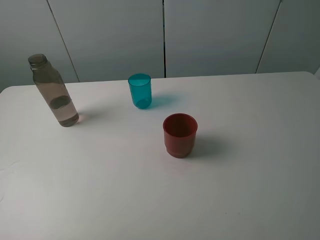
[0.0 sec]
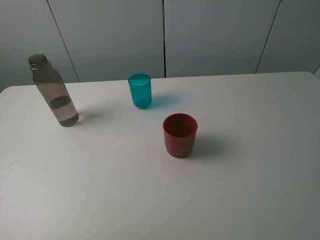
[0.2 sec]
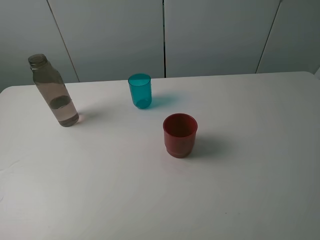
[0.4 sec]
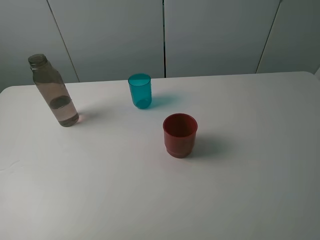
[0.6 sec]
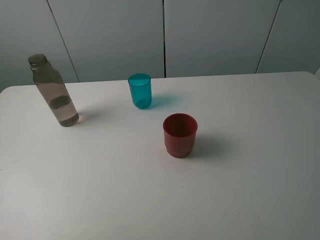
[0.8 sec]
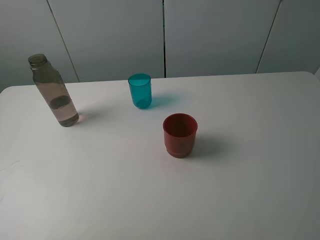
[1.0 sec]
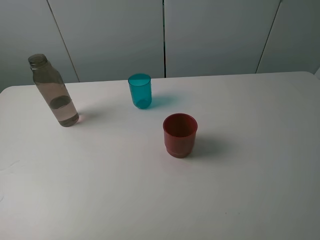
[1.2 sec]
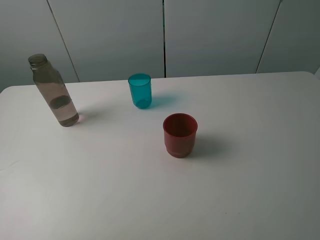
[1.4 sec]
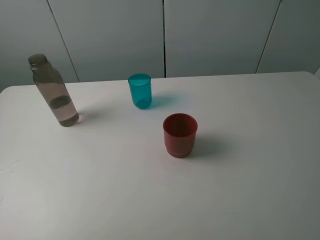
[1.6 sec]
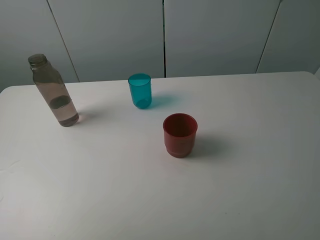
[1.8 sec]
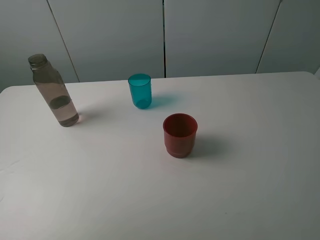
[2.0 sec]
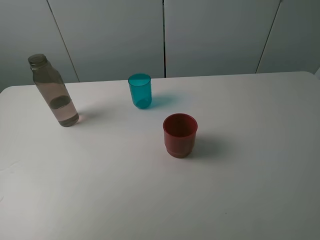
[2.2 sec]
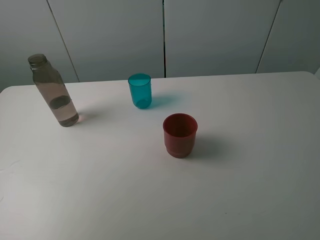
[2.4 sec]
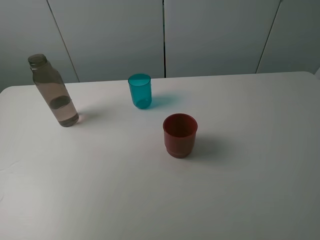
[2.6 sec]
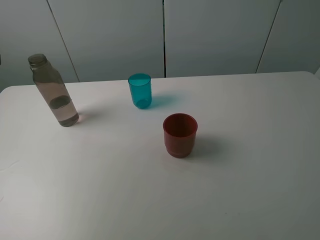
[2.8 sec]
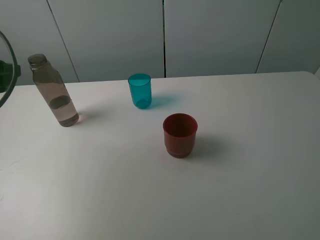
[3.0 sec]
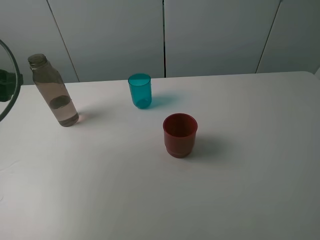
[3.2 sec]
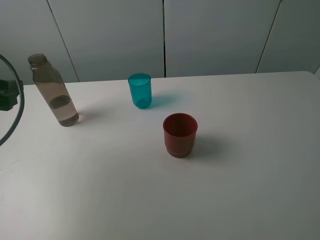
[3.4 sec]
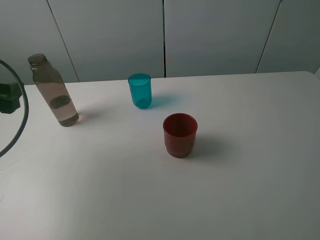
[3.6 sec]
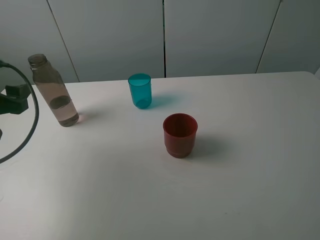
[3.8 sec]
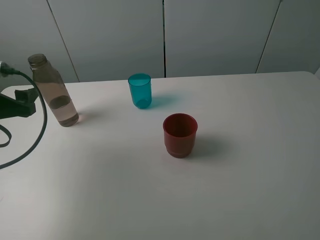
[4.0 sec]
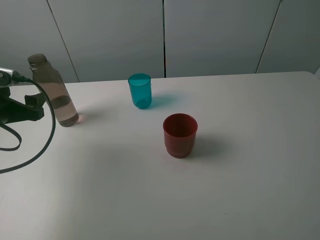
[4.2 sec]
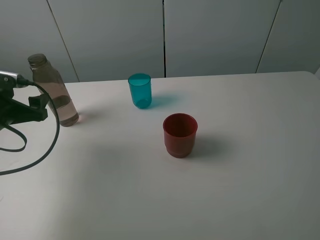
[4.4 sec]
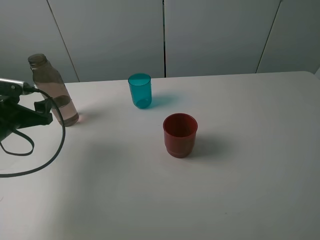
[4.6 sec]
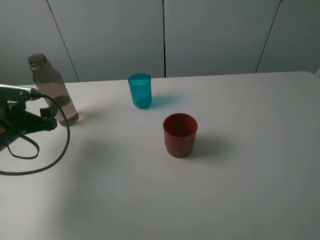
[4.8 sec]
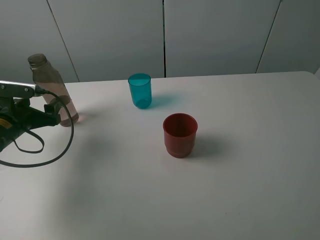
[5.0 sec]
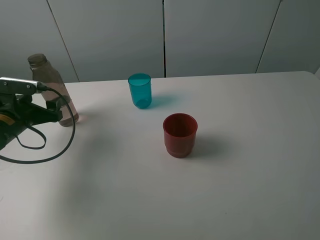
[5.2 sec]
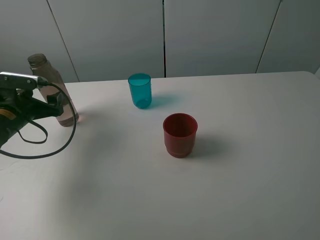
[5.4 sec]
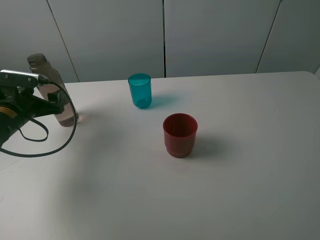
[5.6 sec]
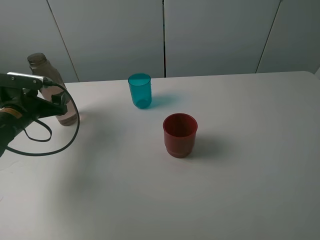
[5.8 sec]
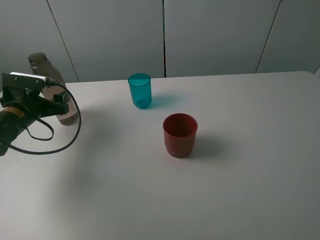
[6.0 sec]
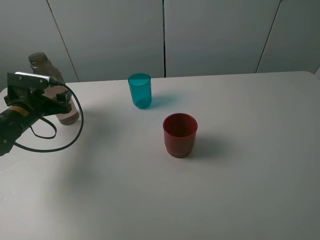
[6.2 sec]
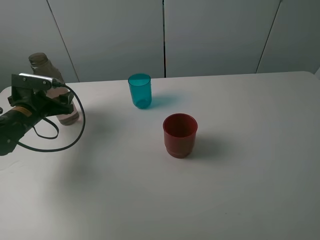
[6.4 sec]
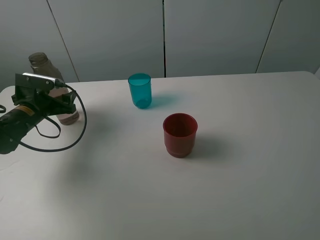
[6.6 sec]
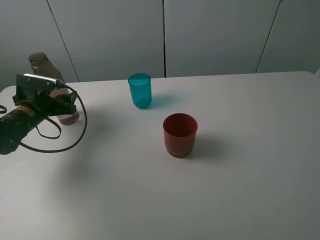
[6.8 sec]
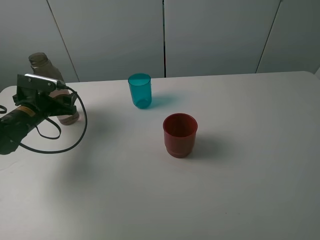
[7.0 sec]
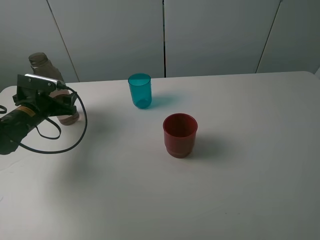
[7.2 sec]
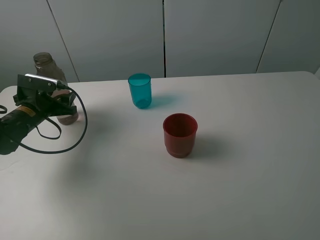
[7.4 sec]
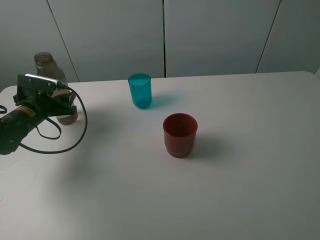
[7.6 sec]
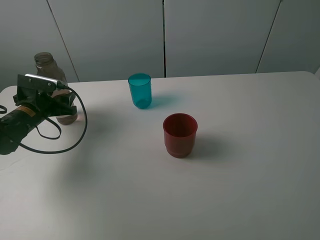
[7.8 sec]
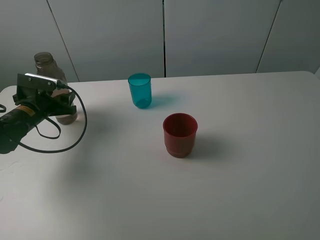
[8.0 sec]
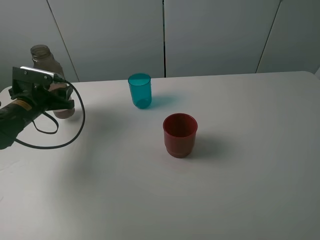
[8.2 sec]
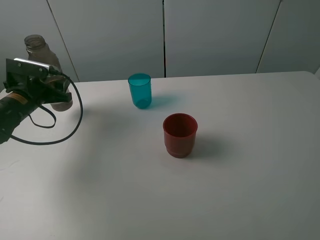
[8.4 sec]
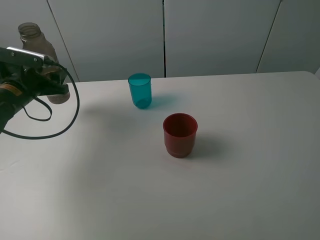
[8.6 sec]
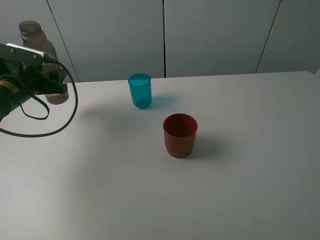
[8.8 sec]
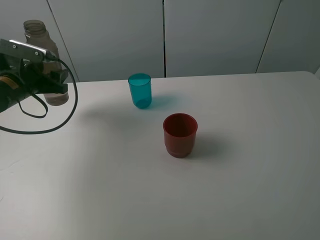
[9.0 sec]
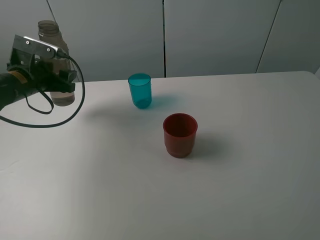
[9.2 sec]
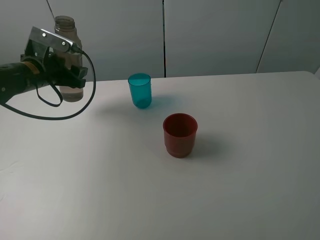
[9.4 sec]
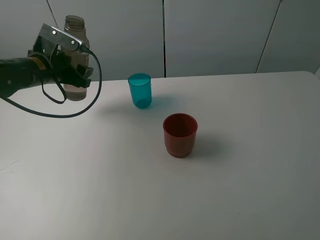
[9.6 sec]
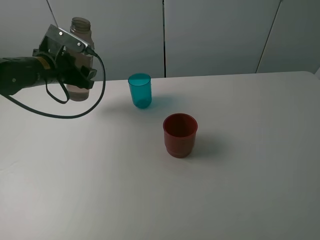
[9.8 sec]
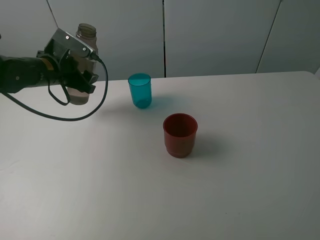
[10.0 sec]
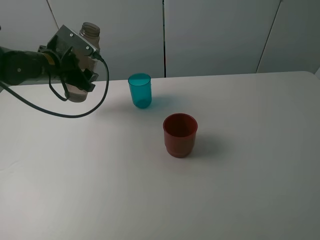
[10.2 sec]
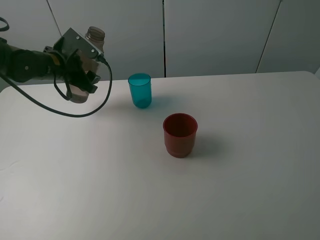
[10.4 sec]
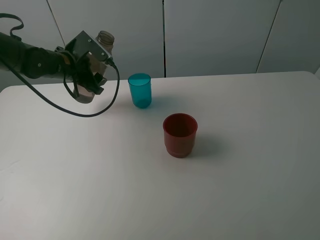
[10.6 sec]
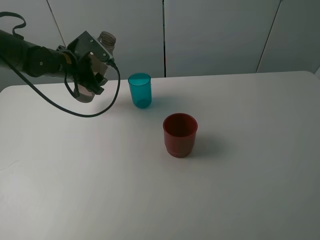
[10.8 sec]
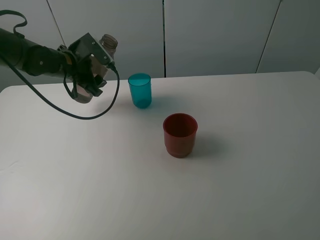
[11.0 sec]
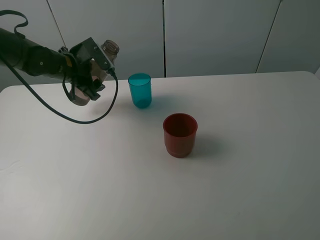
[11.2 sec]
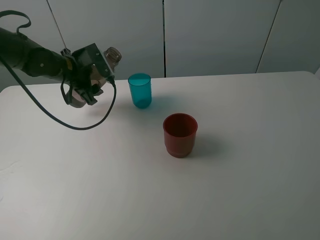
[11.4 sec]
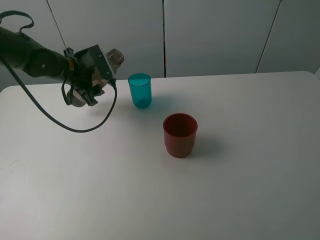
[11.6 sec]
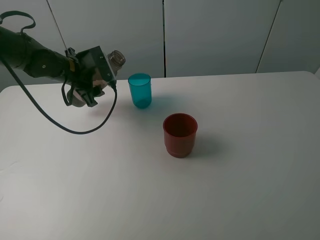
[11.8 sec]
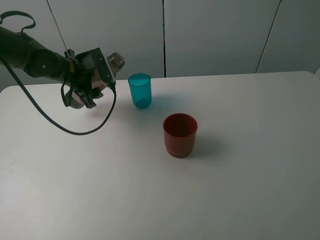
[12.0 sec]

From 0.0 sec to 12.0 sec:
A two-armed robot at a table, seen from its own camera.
Task of the whole recording: pick up the bottle and pour water into the cup, then pick up the cup containing water and pour it into another cup.
Step, from 0.0 sec to 7.6 sec: Grasp the brown bottle with the left gripper.
From 1.6 sec to 3.0 sec: The left gripper is displaced forward by about 20 cm.
From 3.0 sec to 4.4 sec: The left gripper heads downward, covering about 10 cm.
From 4.4 sec to 6.0 sec: The left gripper heads forward, covering some 5 cm.
From 6.0 sec to 7.6 sec: The left gripper closes its fingers.
From 7.6 sec to 9.0 sec: The left gripper heads upward, covering about 10 cm.
From 9.0 sec to 10.4 sec: The left gripper heads to the right and forward, covering approximately 10 cm.

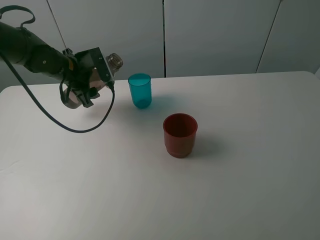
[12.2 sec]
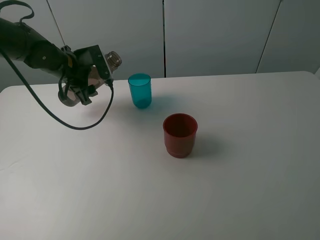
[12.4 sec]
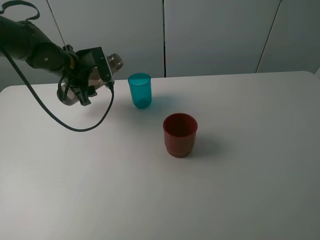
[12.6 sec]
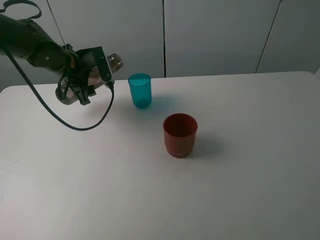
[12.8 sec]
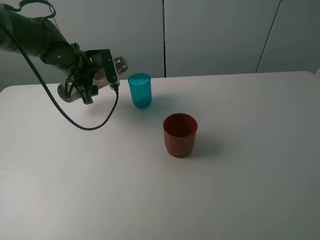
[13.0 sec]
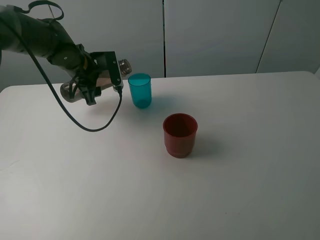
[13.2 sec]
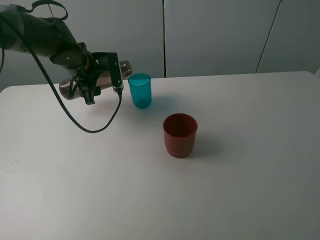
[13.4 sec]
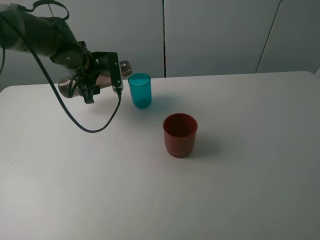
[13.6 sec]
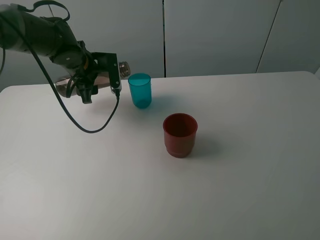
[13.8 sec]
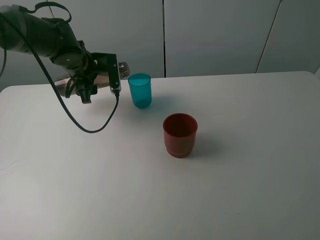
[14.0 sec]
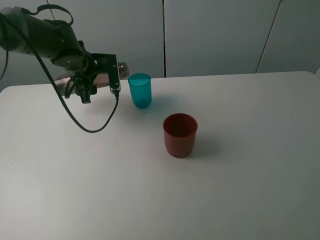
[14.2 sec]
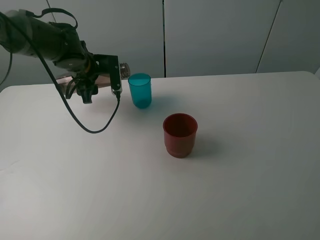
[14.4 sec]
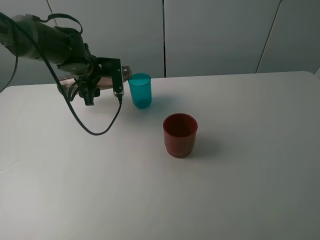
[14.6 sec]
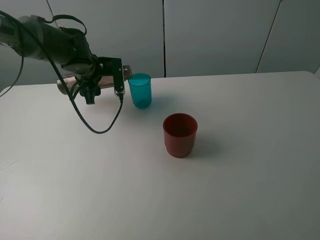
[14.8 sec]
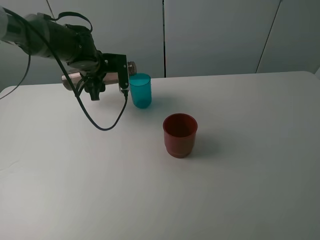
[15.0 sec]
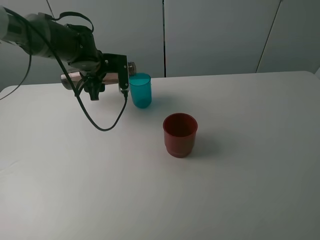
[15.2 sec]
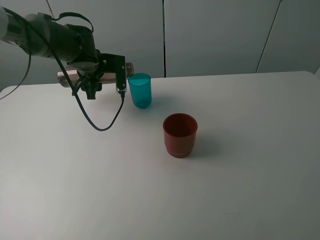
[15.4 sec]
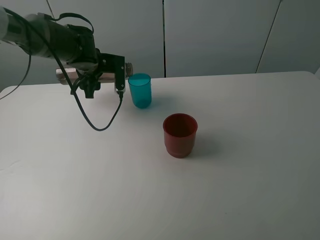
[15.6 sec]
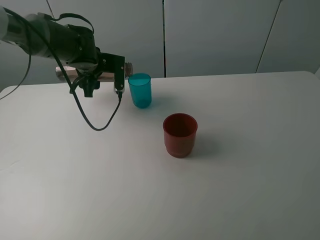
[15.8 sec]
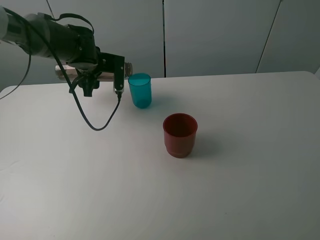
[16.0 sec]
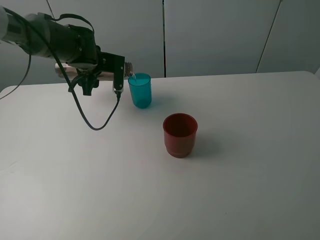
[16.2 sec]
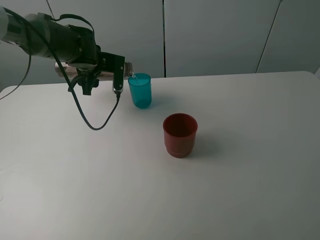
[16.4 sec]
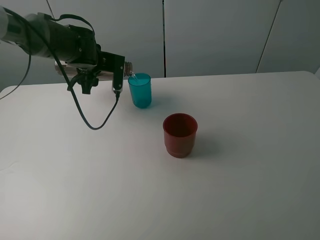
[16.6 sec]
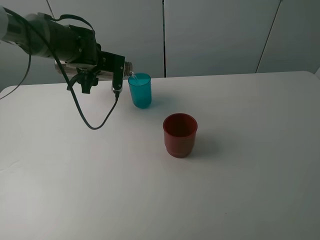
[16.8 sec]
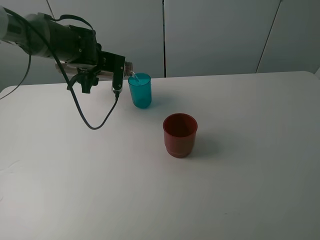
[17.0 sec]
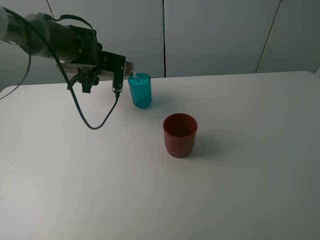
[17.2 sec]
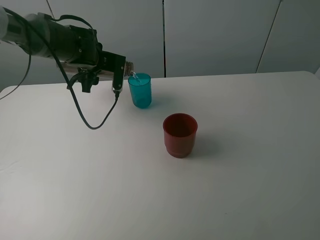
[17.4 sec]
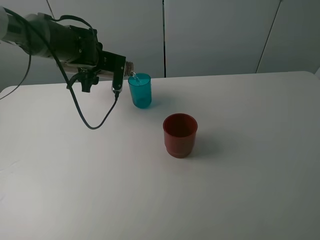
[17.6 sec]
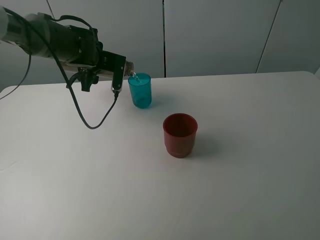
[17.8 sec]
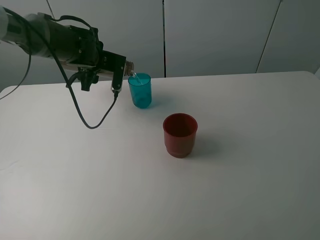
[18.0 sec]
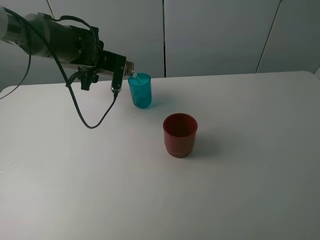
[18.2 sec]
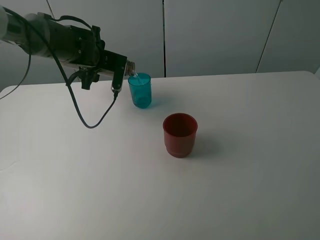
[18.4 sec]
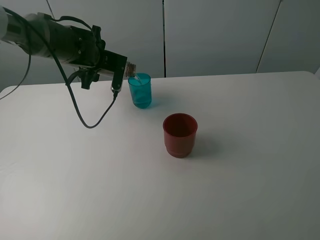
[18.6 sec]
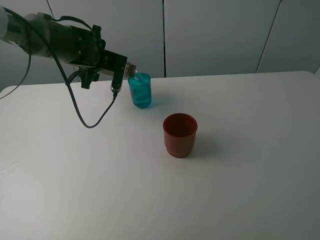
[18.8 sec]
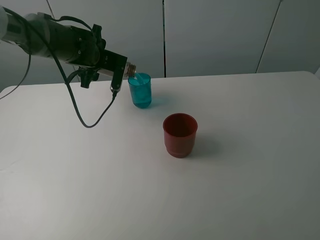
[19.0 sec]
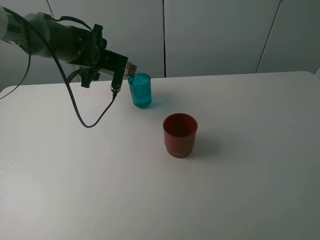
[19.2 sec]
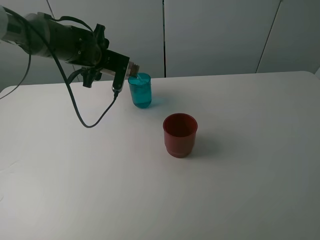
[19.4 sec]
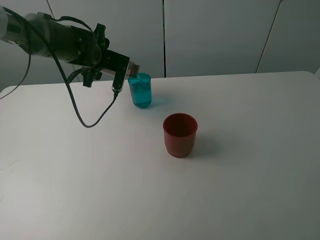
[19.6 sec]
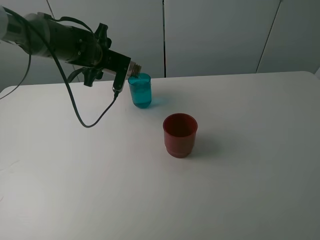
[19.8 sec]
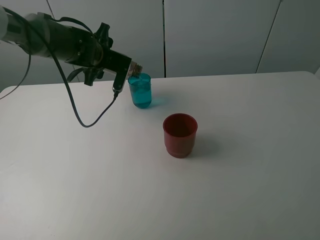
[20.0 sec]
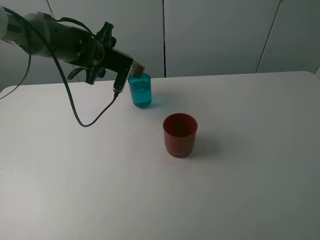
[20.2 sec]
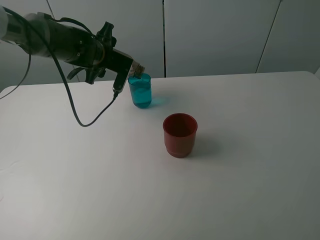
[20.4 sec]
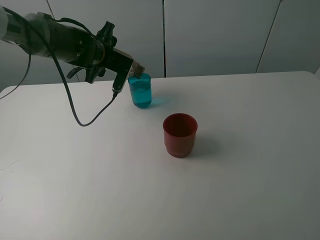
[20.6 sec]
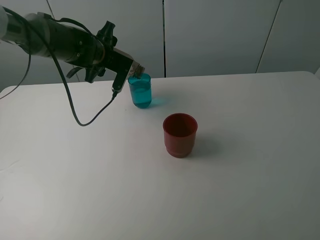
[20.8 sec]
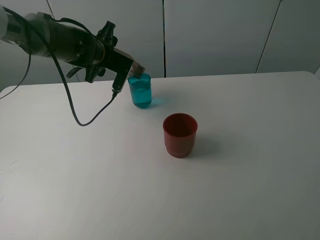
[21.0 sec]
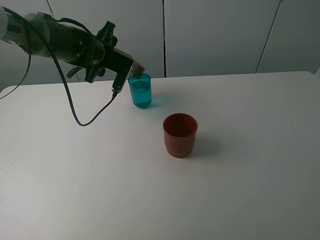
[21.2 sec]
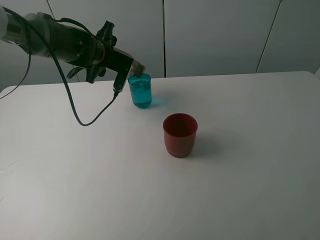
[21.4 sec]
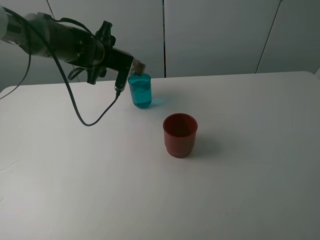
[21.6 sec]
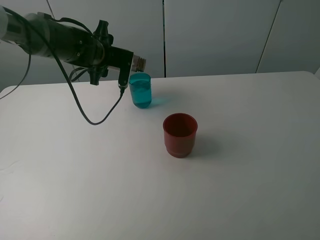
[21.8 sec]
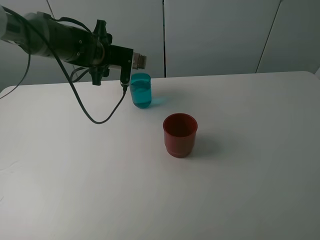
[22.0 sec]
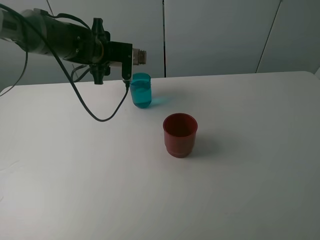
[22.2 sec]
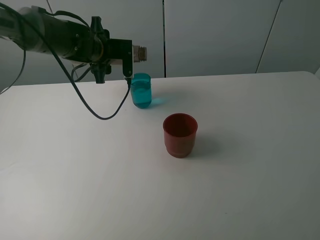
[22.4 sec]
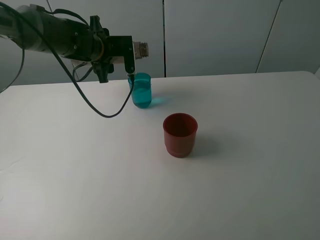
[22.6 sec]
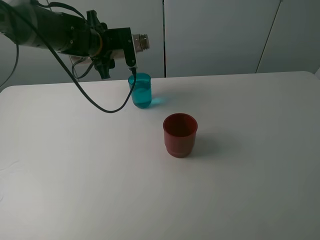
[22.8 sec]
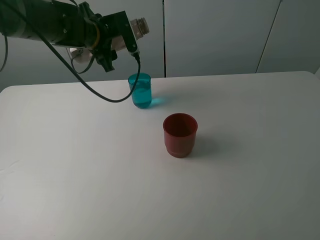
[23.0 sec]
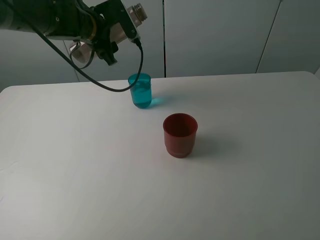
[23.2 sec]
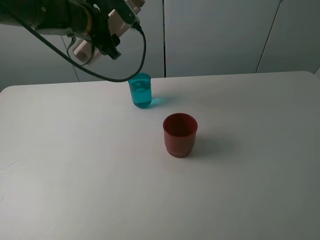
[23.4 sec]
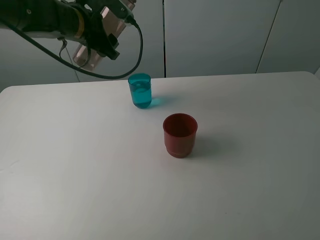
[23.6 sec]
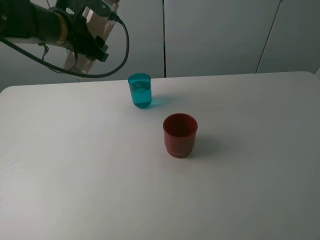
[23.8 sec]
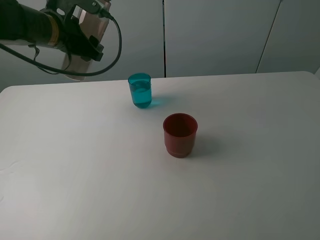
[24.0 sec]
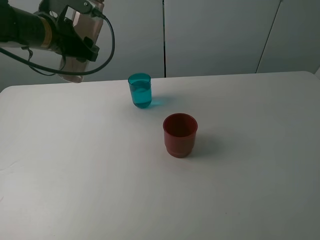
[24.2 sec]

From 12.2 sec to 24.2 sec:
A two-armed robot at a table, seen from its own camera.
Task of the whole recording: pick up the bottle and pour water into the cup, then pick up the cup containing water and pour it into another cup.
Step, from 12.2 sec to 21.6 sec: Pour water from brown bottle to blue cup with the left gripper.
From 13.8 sec to 16.6 sec: There are only small adjustments of the grippers.
From 16.6 sec to 19.8 sec: The grippers make only small movements.
From 19.8 sec to 21.2 sec: The grippers move only a little.
From 22.6 sec to 24.2 sec: The left gripper travels to the left, backward and upward by some 10 cm.
